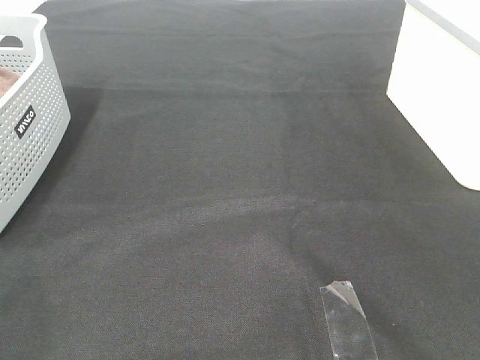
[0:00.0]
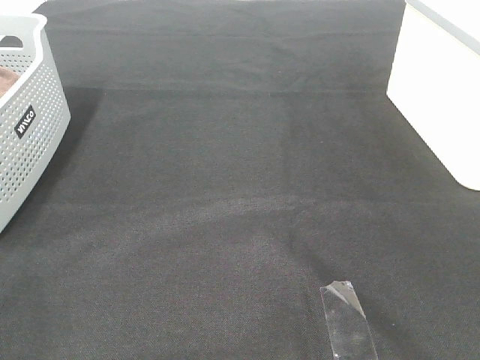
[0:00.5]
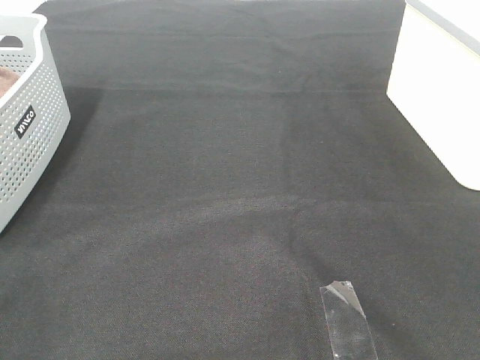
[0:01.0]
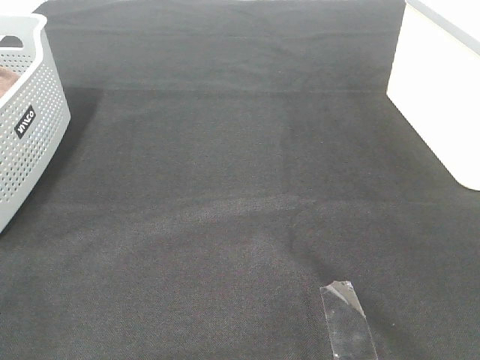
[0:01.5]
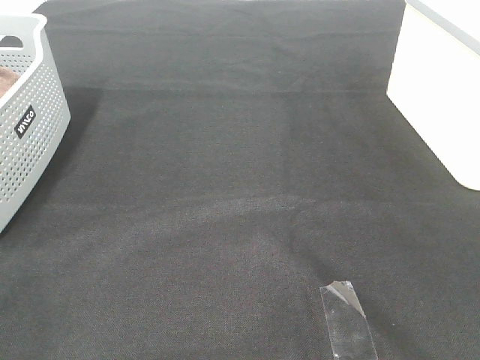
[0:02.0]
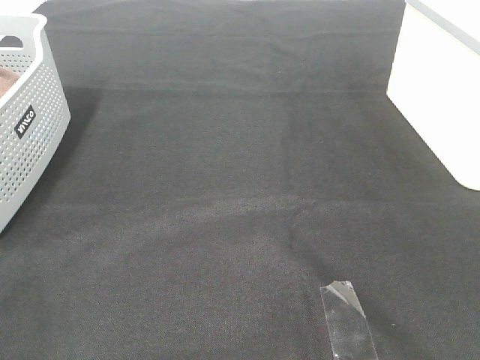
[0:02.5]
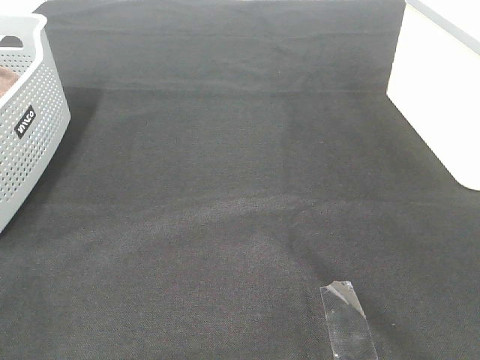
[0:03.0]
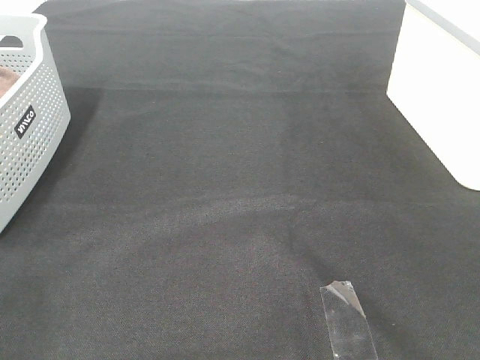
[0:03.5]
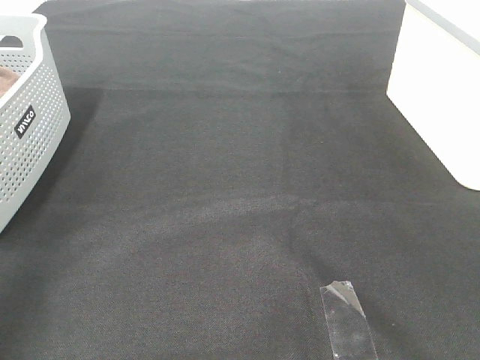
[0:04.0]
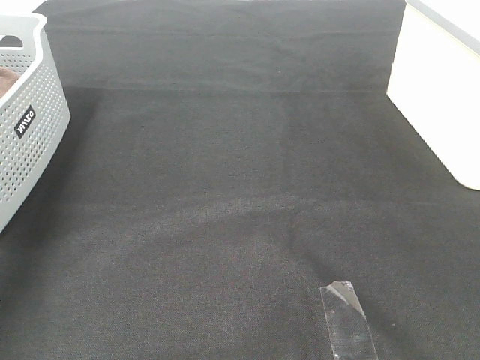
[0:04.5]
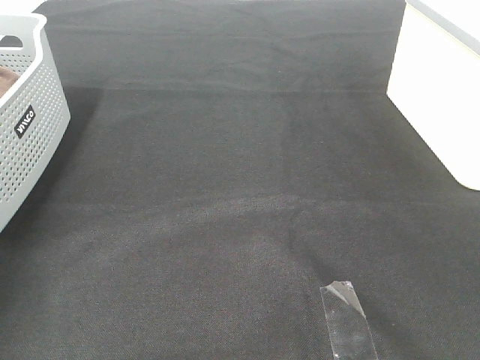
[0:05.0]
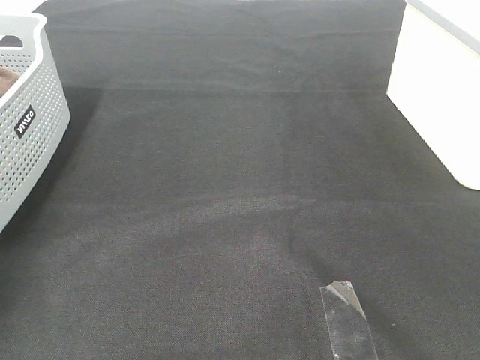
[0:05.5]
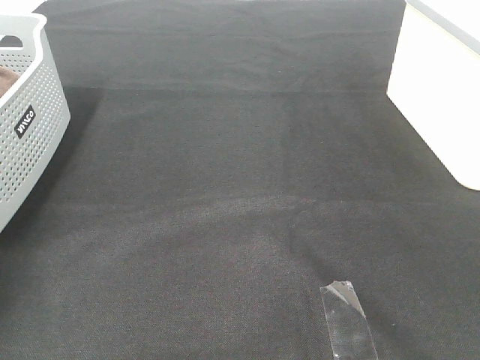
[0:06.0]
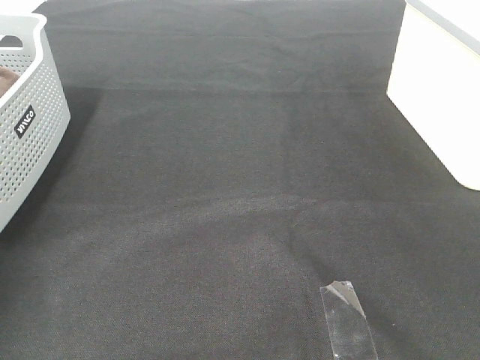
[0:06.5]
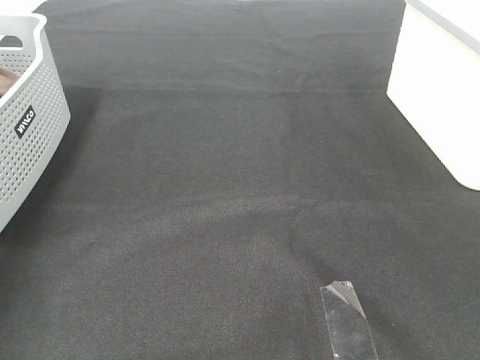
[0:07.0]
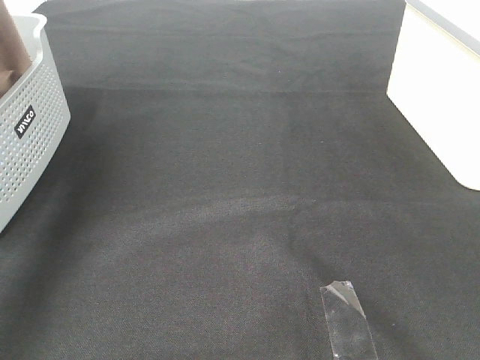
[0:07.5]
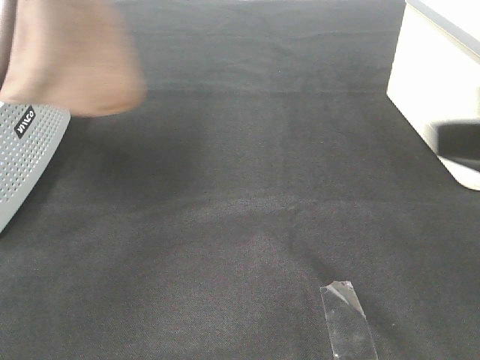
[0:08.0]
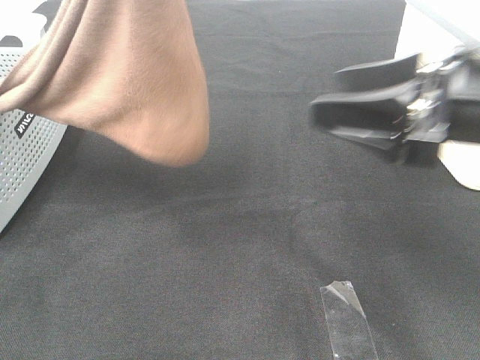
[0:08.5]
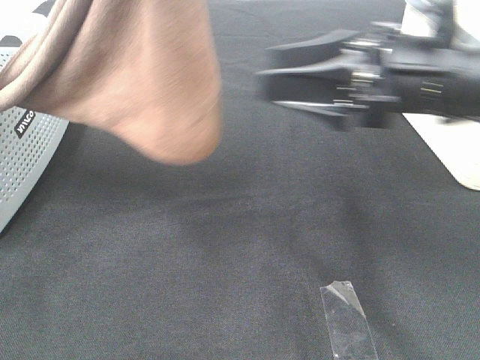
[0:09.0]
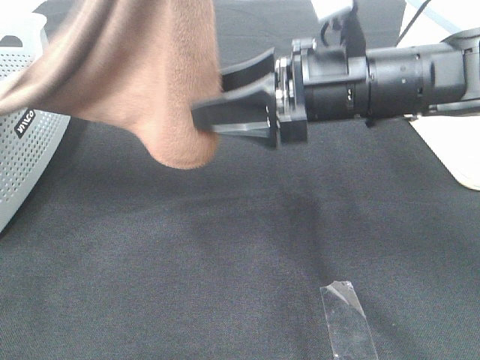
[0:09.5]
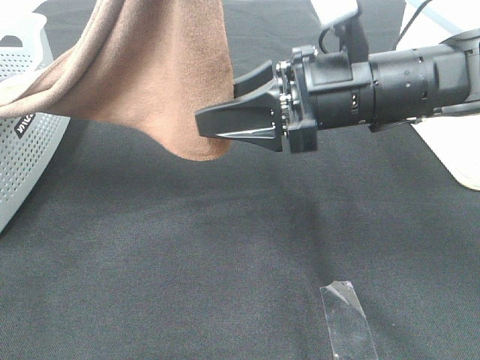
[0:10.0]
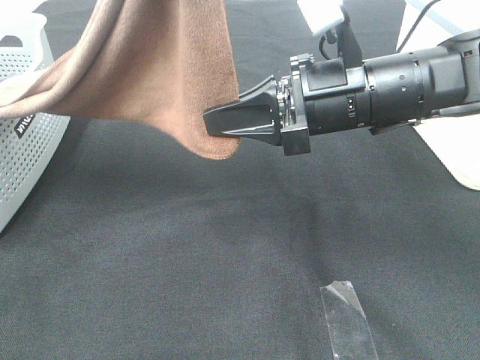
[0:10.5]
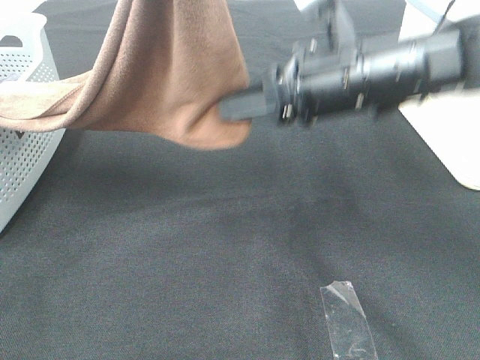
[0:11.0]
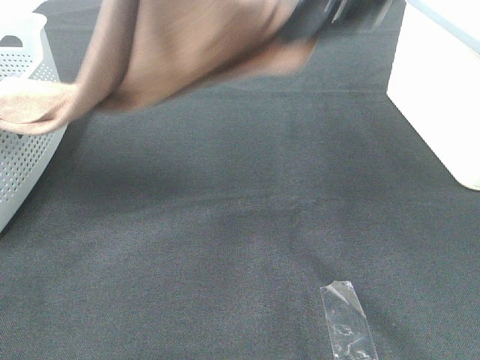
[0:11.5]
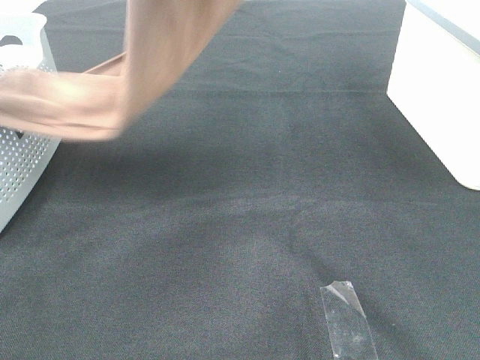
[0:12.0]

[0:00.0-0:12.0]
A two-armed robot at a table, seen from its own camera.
Task of the whole recording: Remove the towel and place it.
Step, 0:07.5 to 0:10.5: Right hand: grab a corner of the brown towel and straighten it.
0:00.0 to 0:02.0: The two grippers keep their place.
0:06.0 to 0:08.0: The left gripper moves upward, to the right and backward, about 40 cm. Meanwhile the right gripper is displaced forward by about 15 cm.
0:08.0 to 0:10.0: The right gripper is displaced forward, to the left and downward by approximately 20 cm. The left gripper goes roughly 10 cm to the right.
0:10.0 to 0:12.0: The left gripper travels forward by some 5 cm, while the right gripper shifts about 25 cm upward, and closes its fingers.

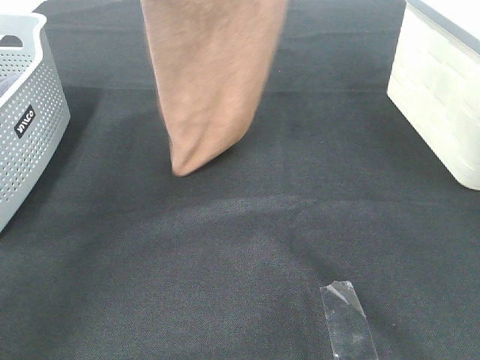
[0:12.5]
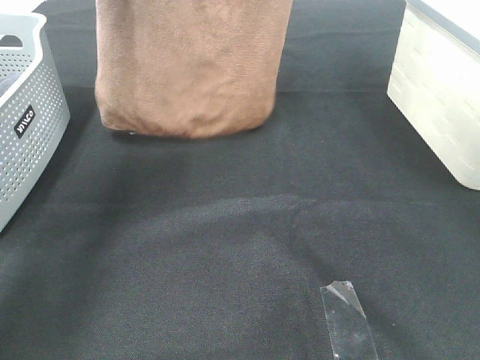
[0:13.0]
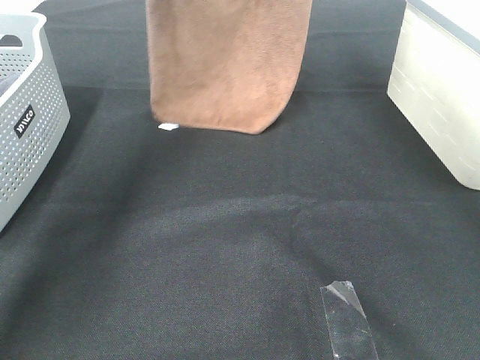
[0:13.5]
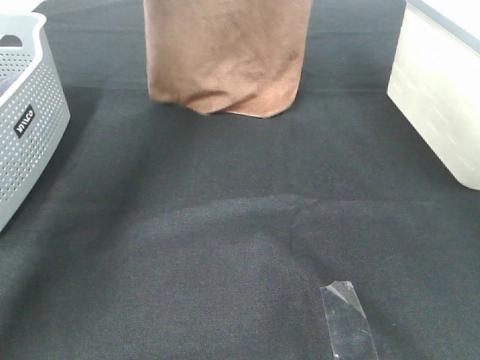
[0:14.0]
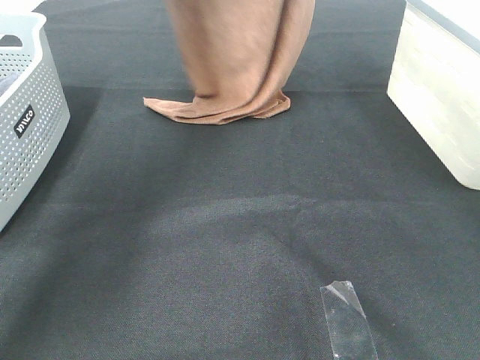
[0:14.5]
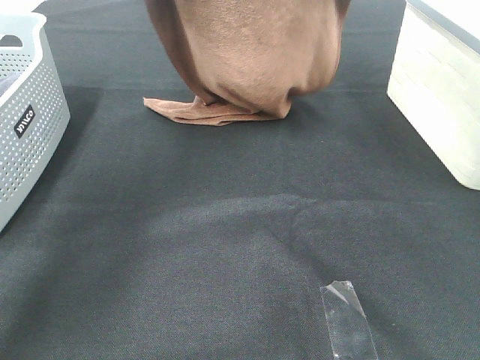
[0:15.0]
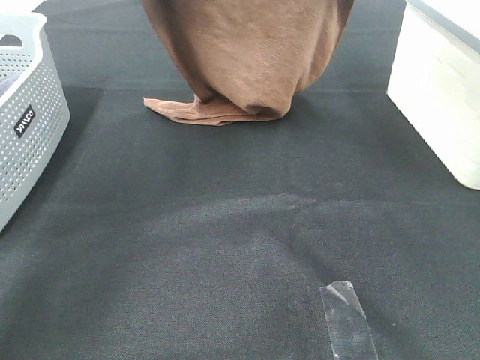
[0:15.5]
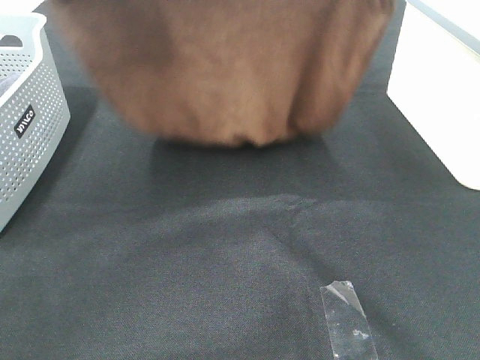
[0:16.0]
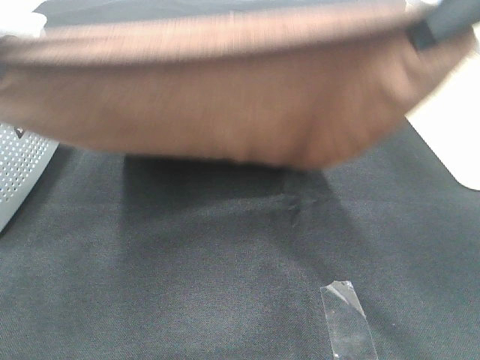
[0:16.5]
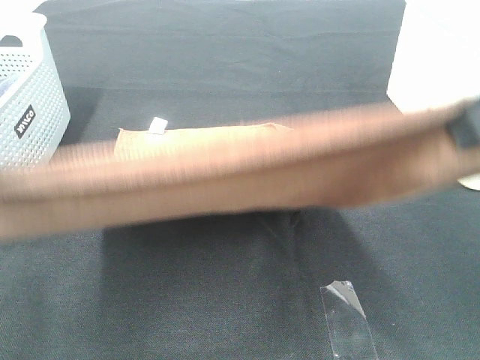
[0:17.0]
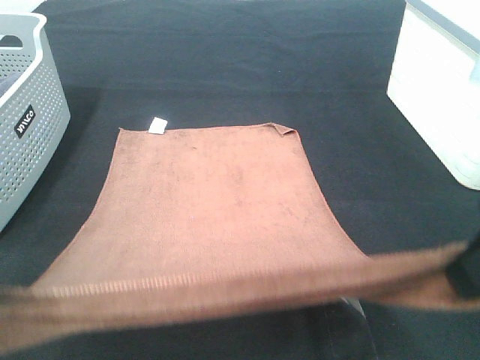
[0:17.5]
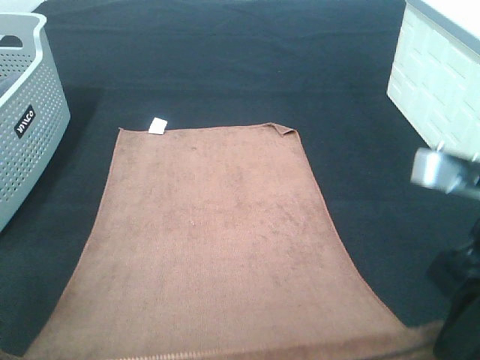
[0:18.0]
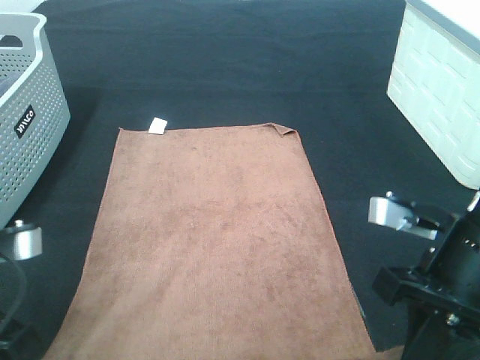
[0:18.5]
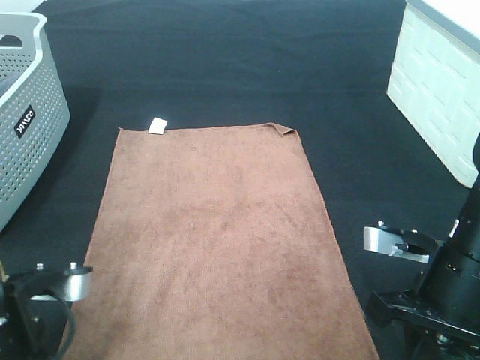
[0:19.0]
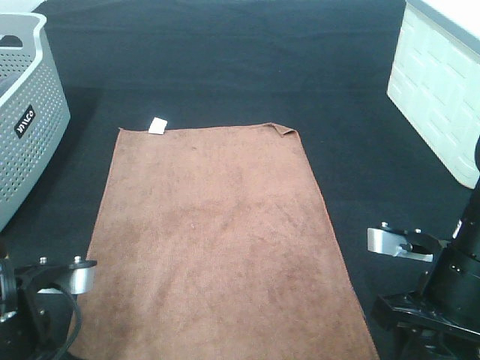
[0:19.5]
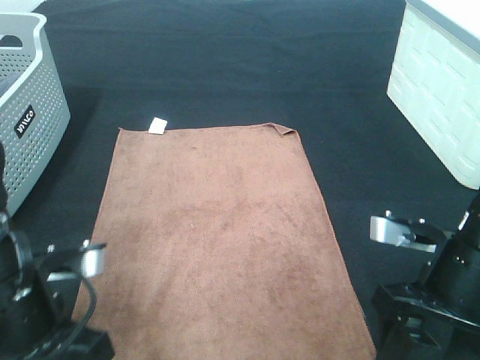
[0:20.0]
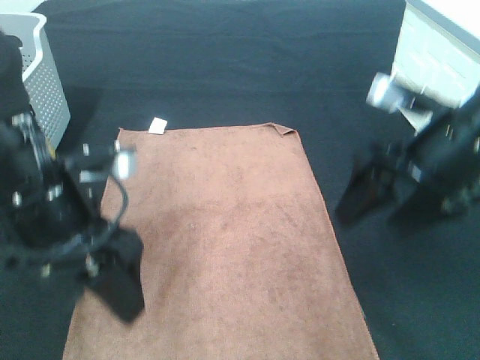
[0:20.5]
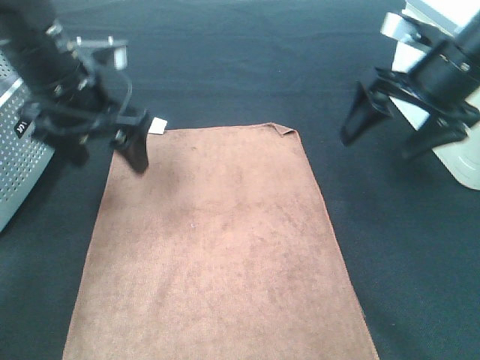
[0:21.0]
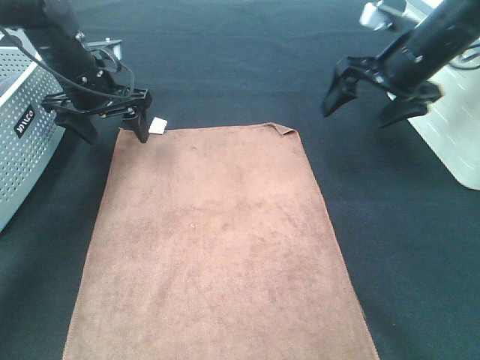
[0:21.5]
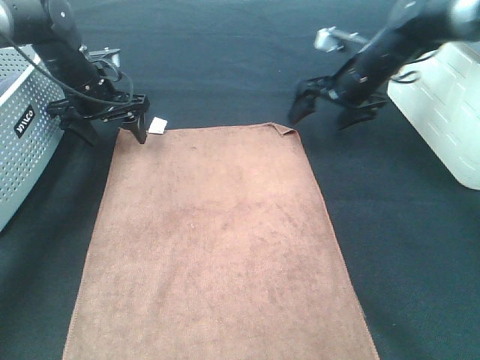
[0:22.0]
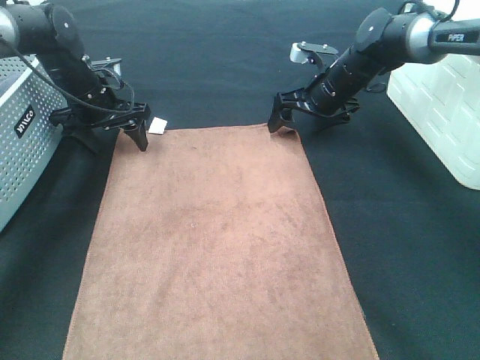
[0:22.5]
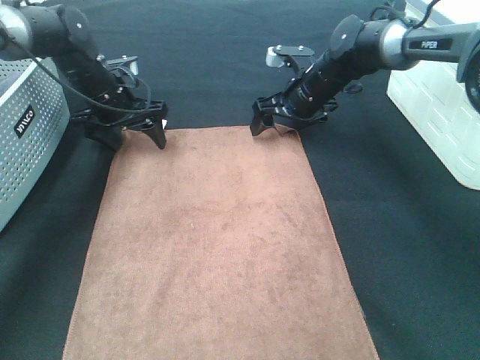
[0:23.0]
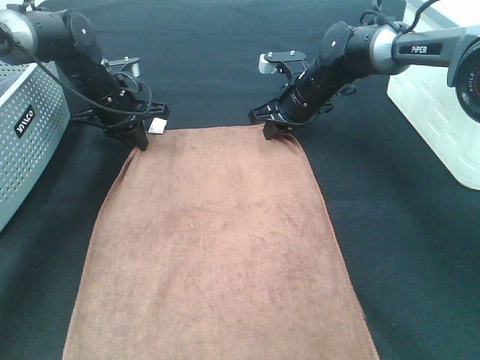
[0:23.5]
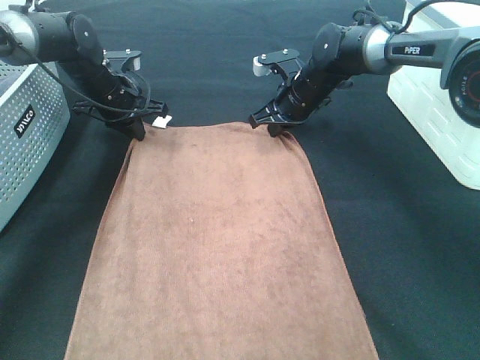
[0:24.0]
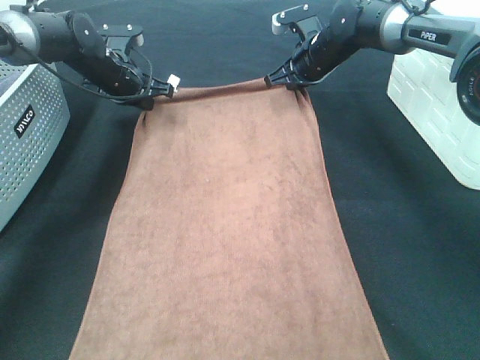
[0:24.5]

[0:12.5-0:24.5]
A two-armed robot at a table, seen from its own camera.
Task of the whole recording: Remove the towel and place it.
Step, 0:12.5 to 0:16.0: Left hand: spread the brown towel flat on the table.
Step, 0:12.5 to 0:16.0: Right hand: spread the brown towel flat on the table.
Step, 0:16.5 to 0:23.0: Left hand:adjust the brown towel.
Step, 0:16.5 to 0:23.0: Right hand:adjust the brown towel.
0:12.5 to 0:14.5: The right gripper moves downward and forward, roughly 10 cm; the left gripper travels forward and downward by about 15 cm.
0:14.5 to 0:16.5: Both grippers travel together backward, about 30 cm.
0:16.5 to 0:18.5: The grippers both shift downward by approximately 20 cm.
0:18.5 to 0:20.5: The right gripper goes roughly 10 cm forward and upward, and opens its fingers. The left gripper heads forward and to the right, covering some 10 cm, and opens its fingers.
0:20.5 to 0:22.5: The left gripper heads forward, covering about 30 cm, while the right gripper is displaced forward and downward by roughly 30 cm.
0:22.5 to 0:24.5: The right gripper changes place by roughly 5 cm, and closes its fingers. Meanwhile the left gripper closes its fingers.

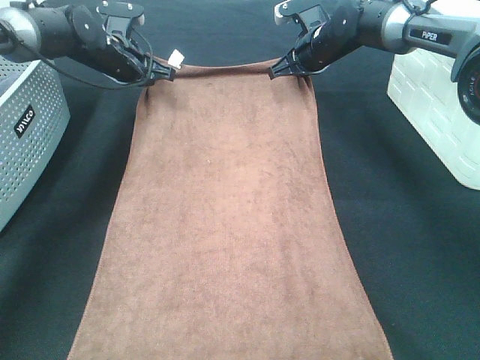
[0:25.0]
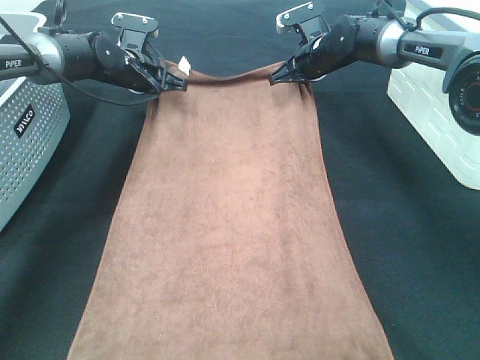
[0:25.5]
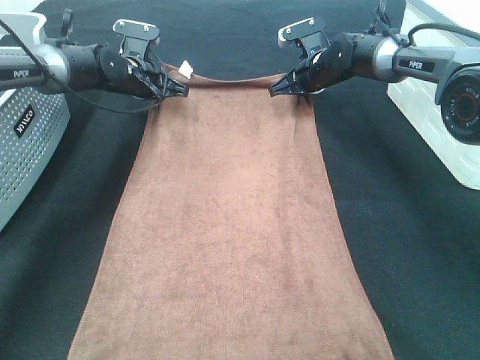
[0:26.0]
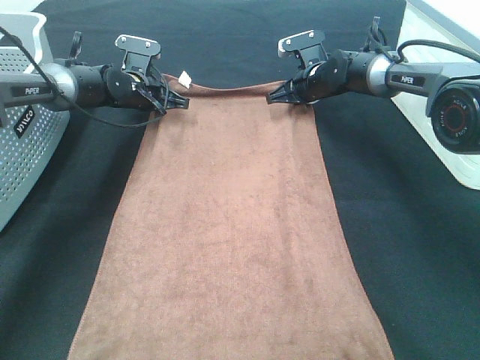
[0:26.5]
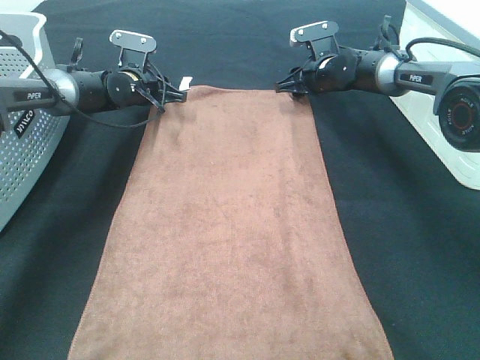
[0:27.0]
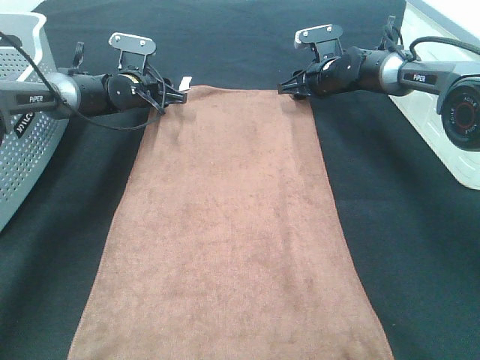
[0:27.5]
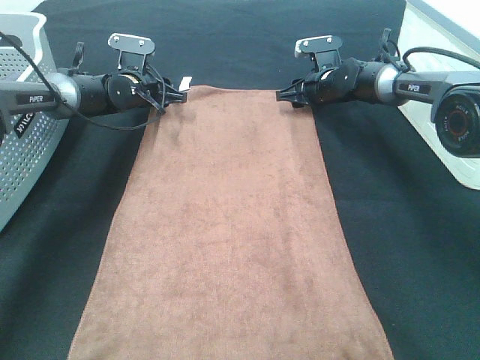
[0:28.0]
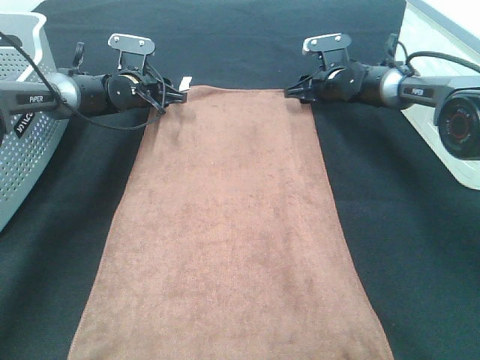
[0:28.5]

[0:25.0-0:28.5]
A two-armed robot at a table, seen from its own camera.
Task of the whole recording: Remove the towel and place it.
0:25.0 to 0:27.0: The grippers both shift downward by about 5 cm. The right gripper opens. The left gripper opens.
0:27.0 to 0:28.5: The grippers make only small movements.
